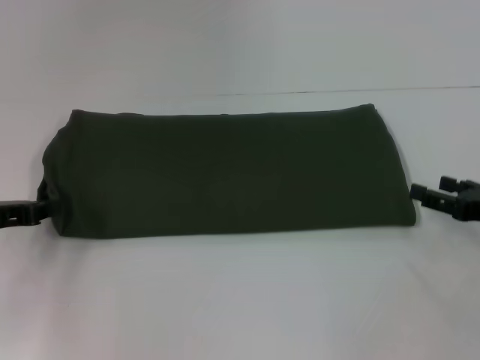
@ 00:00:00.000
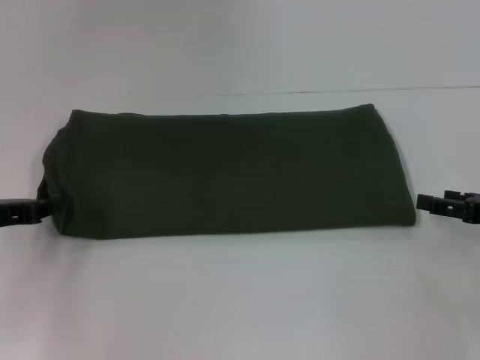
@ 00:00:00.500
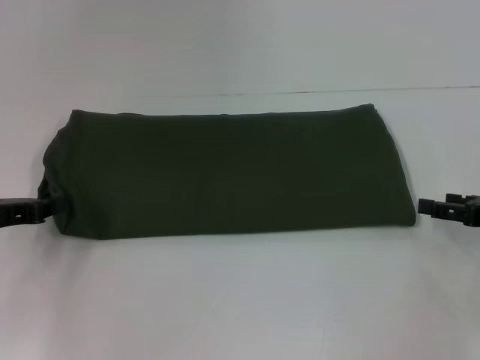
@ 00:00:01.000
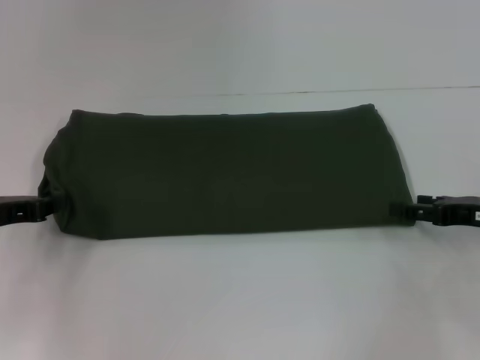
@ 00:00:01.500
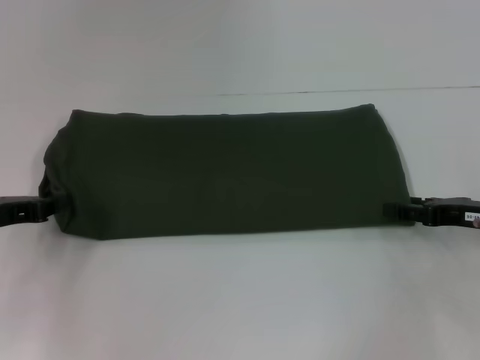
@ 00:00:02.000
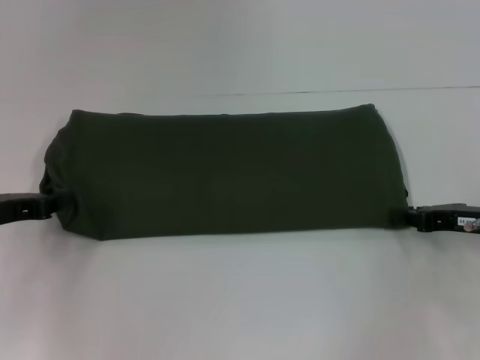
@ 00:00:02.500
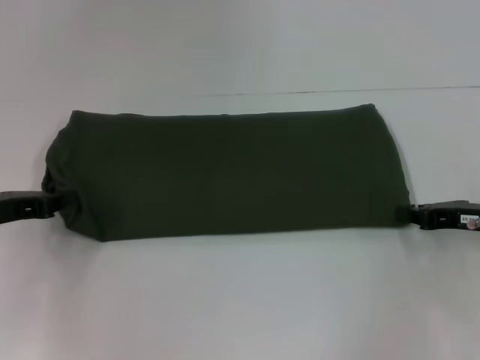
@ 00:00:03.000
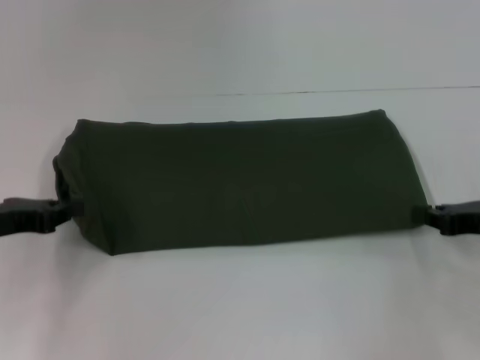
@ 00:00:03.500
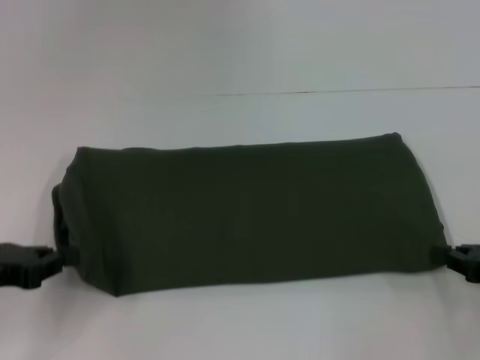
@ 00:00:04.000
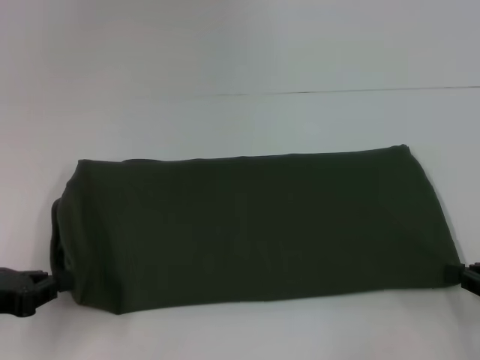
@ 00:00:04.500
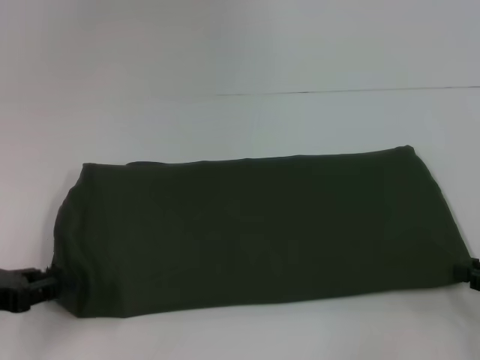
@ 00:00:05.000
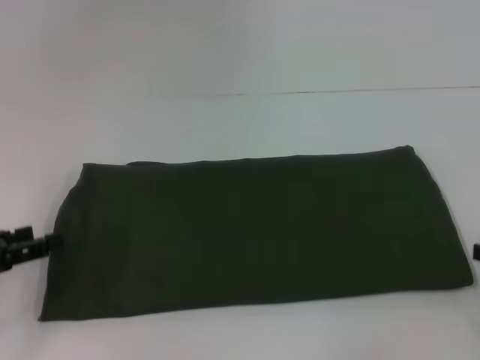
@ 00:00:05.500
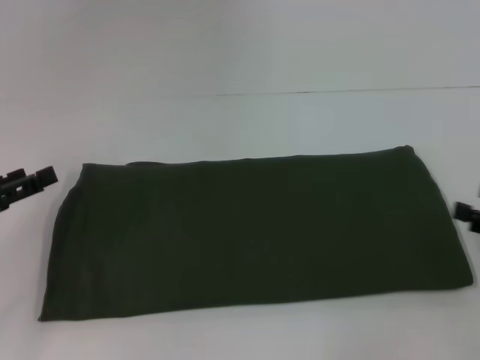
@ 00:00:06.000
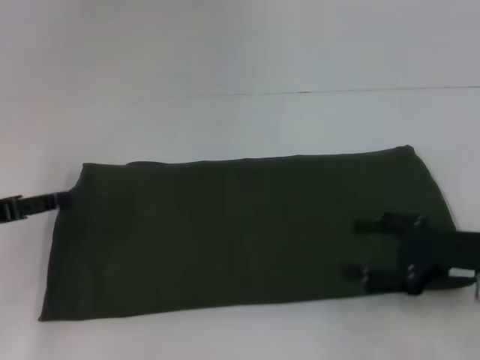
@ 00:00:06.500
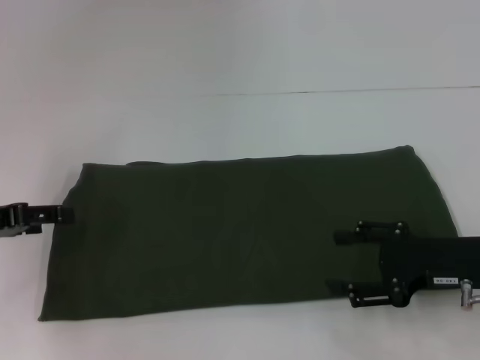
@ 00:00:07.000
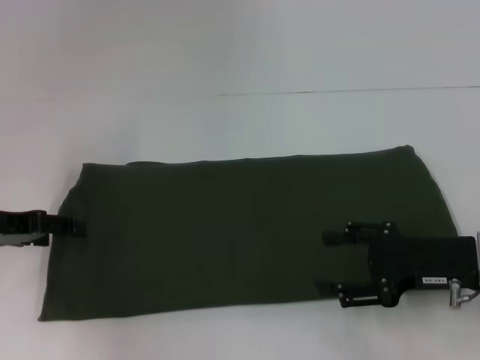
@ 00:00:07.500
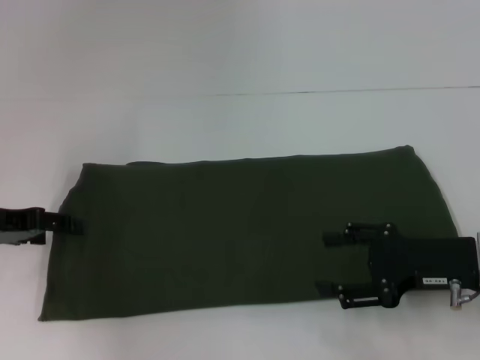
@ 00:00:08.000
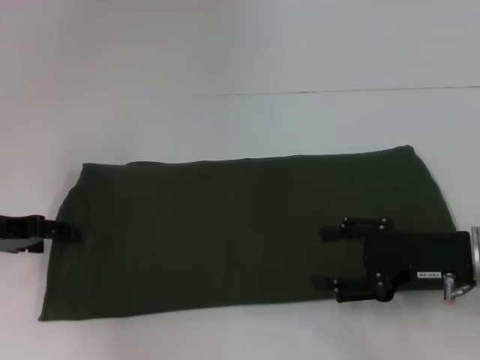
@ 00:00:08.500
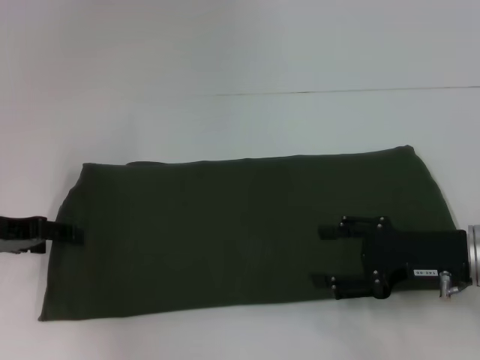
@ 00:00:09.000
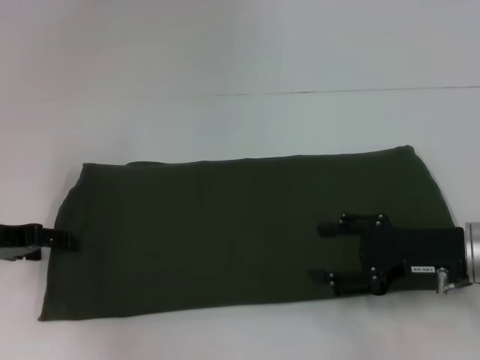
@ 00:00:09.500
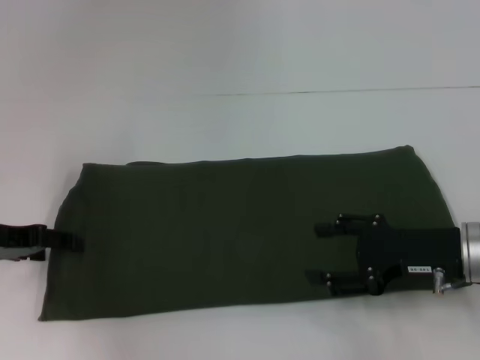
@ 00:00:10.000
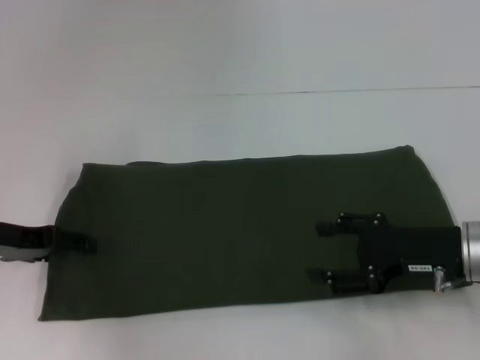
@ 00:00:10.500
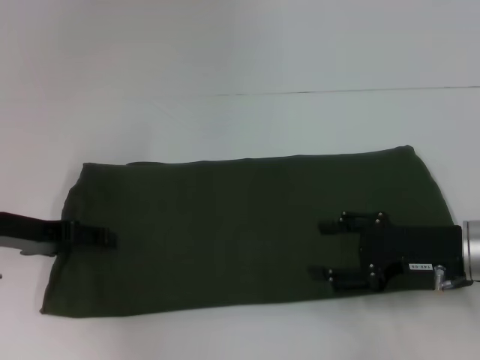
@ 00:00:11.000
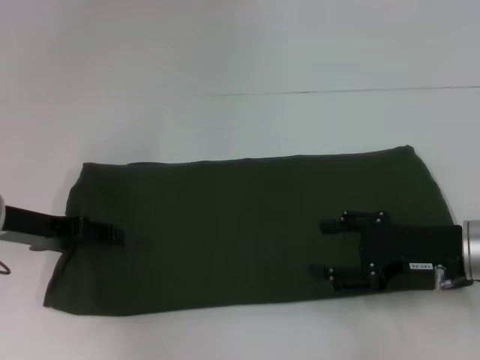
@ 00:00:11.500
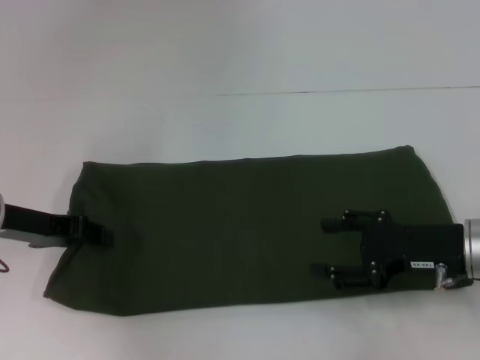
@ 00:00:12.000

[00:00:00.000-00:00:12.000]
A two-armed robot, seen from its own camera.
00:00:00.000 to 00:00:02.000: The grippers move only a little.
00:00:02.000 to 00:00:04.000: The two grippers go roughly 5 cm backward. The right gripper closes up.
00:00:04.000 to 00:00:06.000: The right gripper opens its fingers. The left gripper opens up.
00:00:06.000 to 00:00:08.000: The left gripper is displaced forward by roughly 5 cm. The right gripper is displaced to the left by about 10 cm.
00:00:08.000 to 00:00:12.000: There are only small adjustments of the grippers.

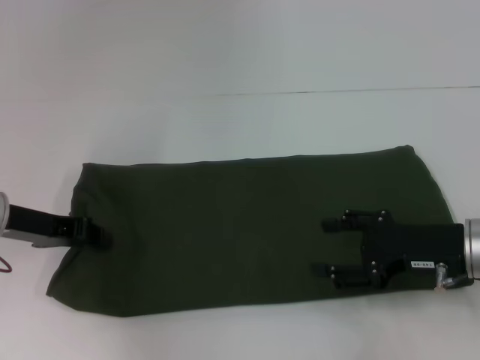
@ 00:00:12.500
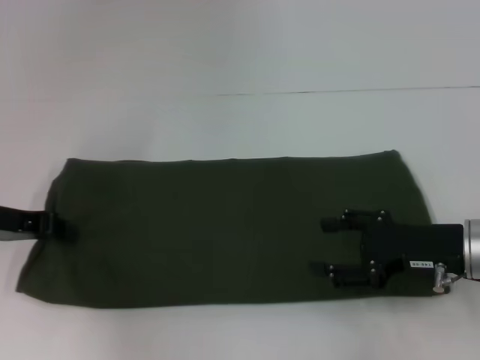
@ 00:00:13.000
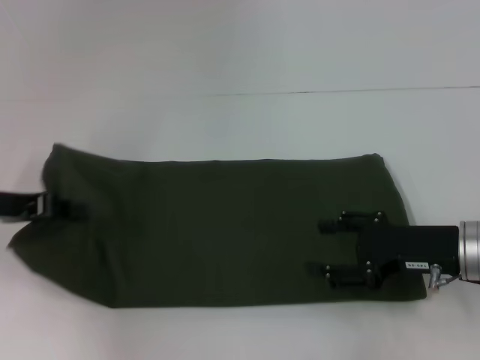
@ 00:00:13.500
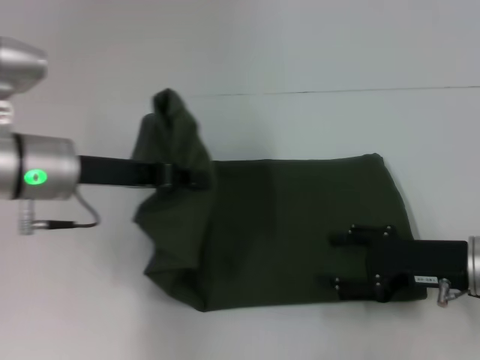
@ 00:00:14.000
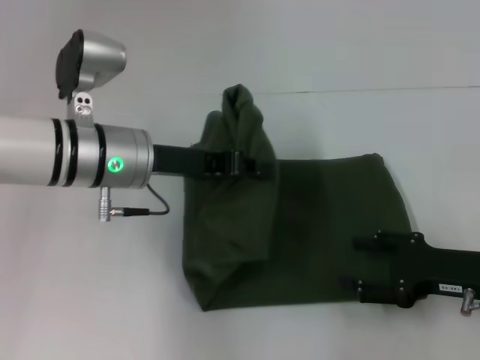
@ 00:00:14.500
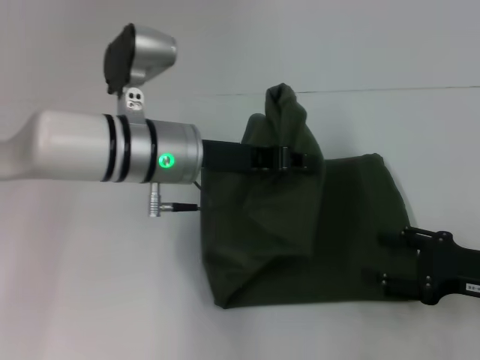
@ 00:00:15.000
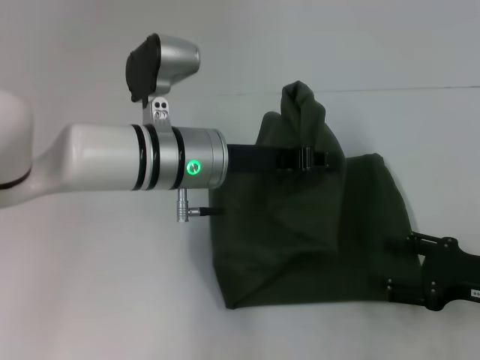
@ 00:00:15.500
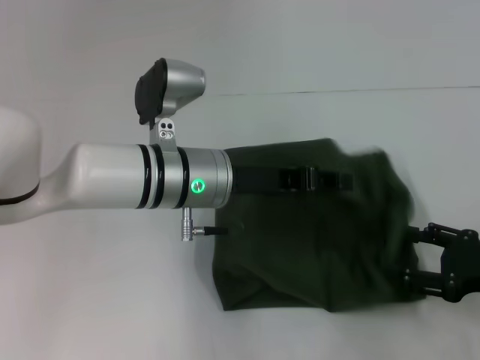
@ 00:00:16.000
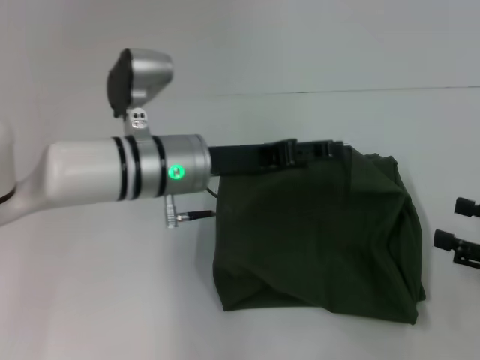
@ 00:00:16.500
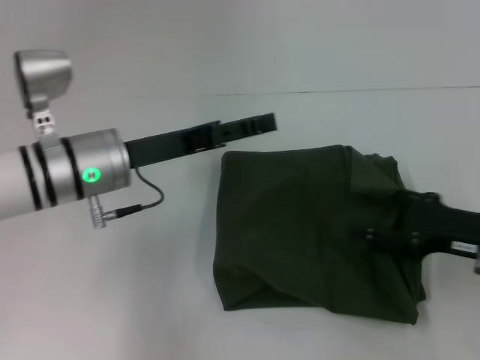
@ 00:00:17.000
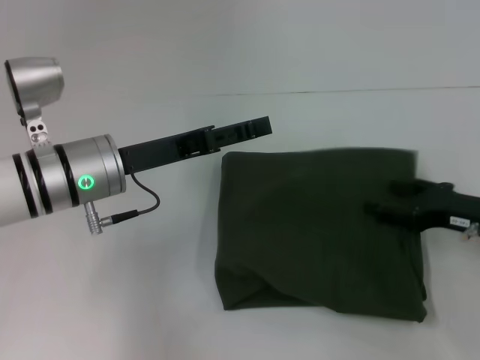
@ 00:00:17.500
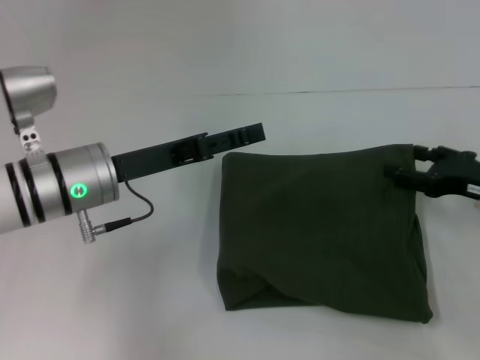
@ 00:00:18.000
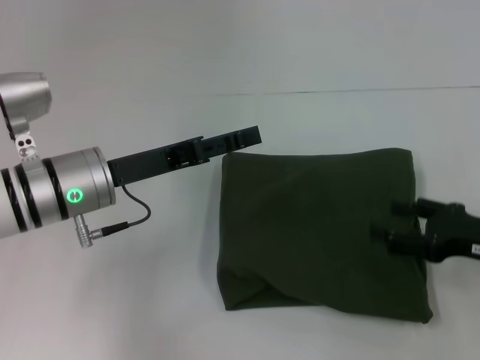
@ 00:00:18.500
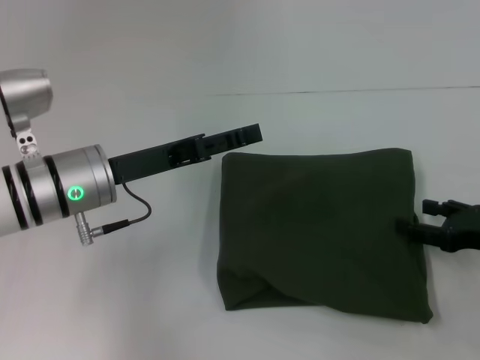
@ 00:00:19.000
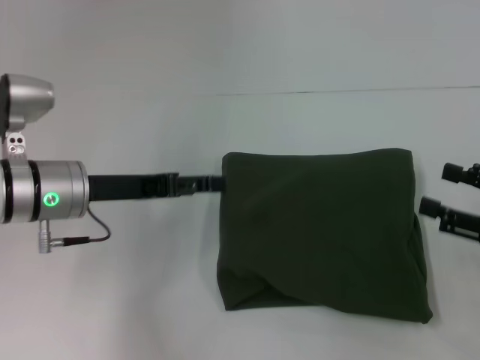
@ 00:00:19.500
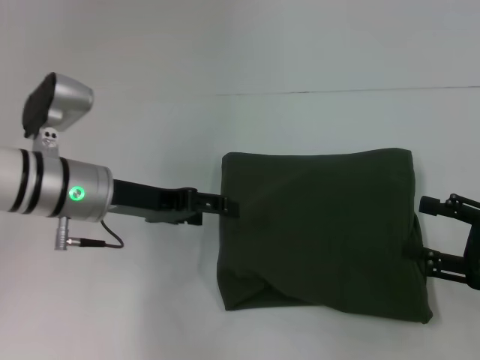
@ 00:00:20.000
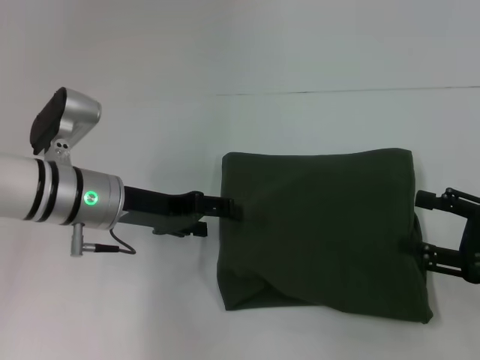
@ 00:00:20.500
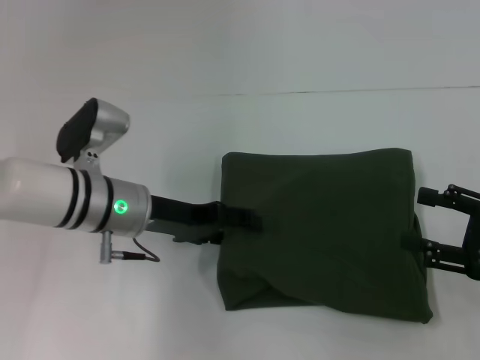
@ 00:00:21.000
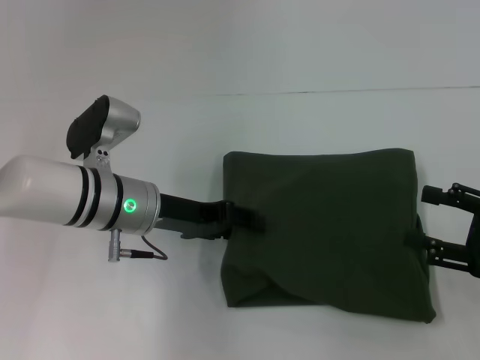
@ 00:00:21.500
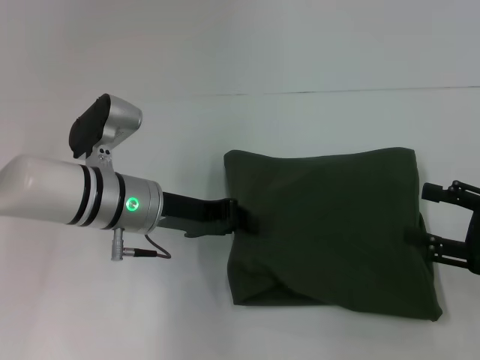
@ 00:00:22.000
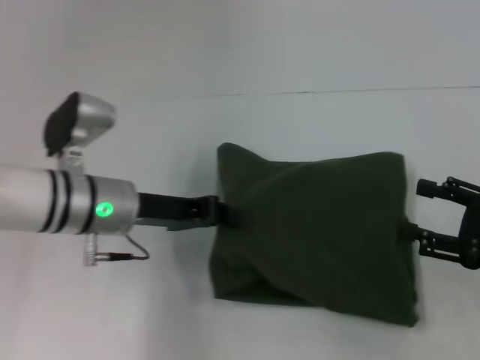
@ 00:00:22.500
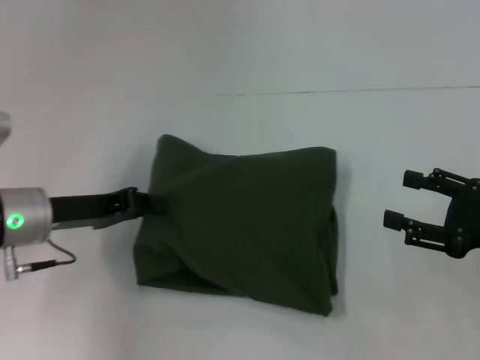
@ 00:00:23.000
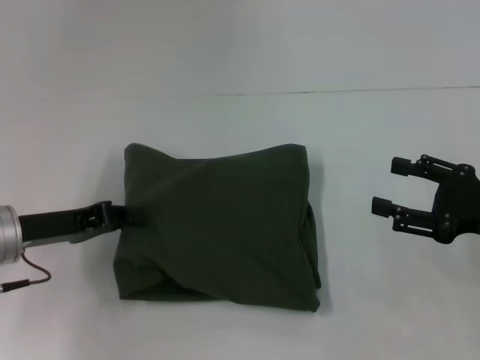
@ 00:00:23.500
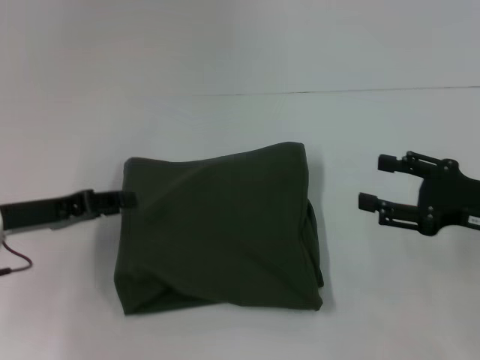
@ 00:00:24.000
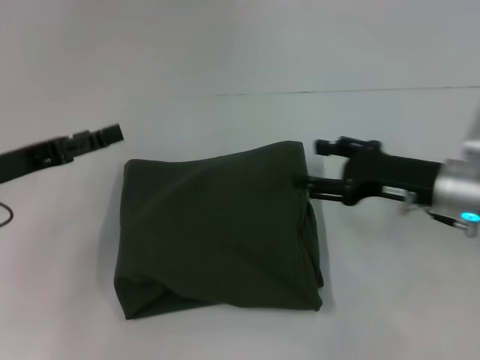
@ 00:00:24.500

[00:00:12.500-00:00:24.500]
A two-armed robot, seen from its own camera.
Step, 00:00:12.500 to 00:00:16.500: Fold the clothes with your left hand.
00:00:12.500 to 00:00:14.500: The left gripper heads to the right, covering approximately 15 cm.
00:00:14.500 to 00:00:16.500: The right gripper is displaced to the right by about 10 cm; the left gripper moves approximately 5 cm, and opens its fingers.
00:00:16.500 to 00:00:18.500: The left gripper heads to the left, covering roughly 10 cm; the right gripper travels to the left by about 5 cm.
00:00:20.500 to 00:00:22.500: The left gripper closes its fingers.
00:00:22.500 to 00:00:24.500: The left gripper travels to the left by about 15 cm, and opens up; the right gripper heads to the left and forward, covering roughly 15 cm.

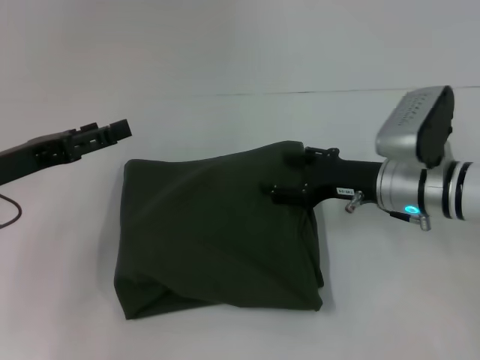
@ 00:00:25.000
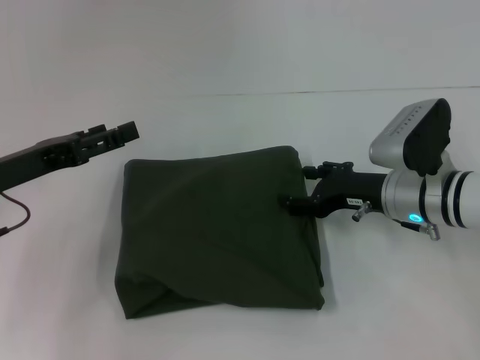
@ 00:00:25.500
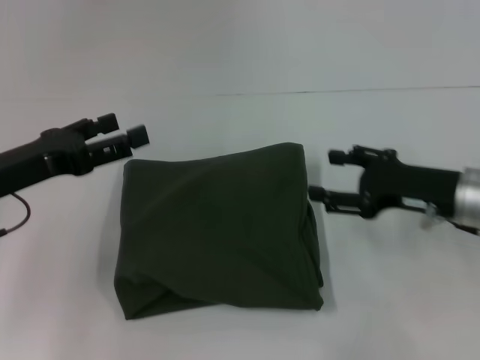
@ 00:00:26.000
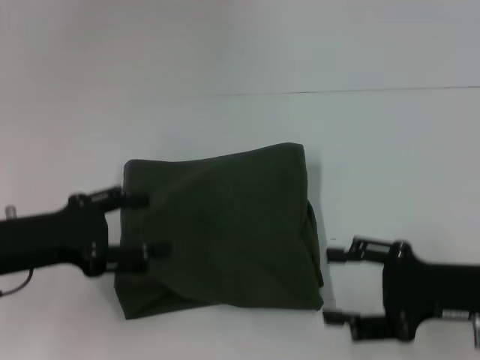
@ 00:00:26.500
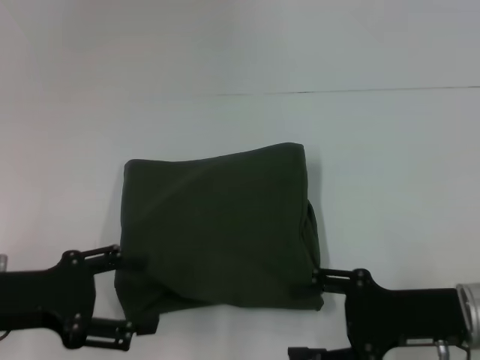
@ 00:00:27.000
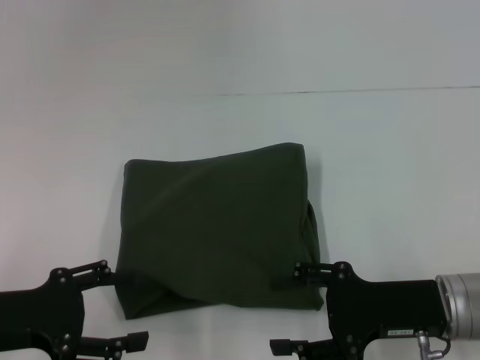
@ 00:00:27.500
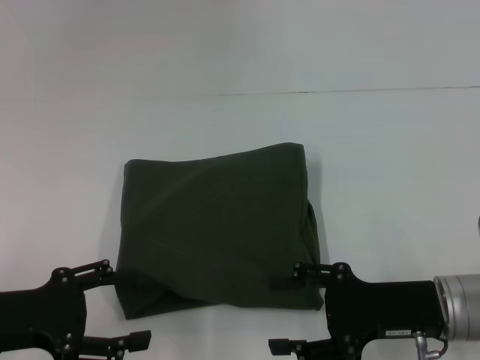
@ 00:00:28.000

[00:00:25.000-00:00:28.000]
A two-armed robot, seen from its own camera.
00:00:25.000 to 00:00:26.500: The right gripper shifts some 15 cm backward and to the right.
00:00:26.500 to 00:00:28.000: The left gripper moves roughly 5 cm; the right gripper ends up about 5 cm from where it was.
